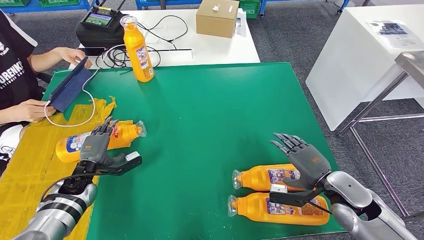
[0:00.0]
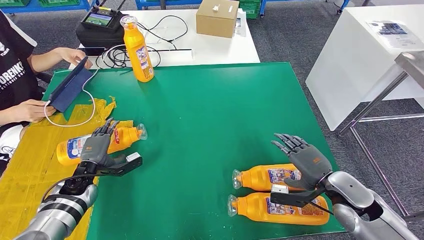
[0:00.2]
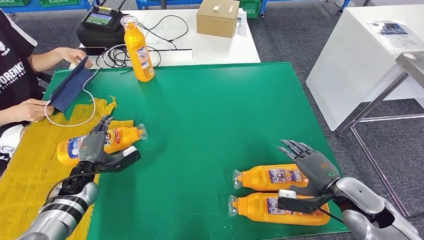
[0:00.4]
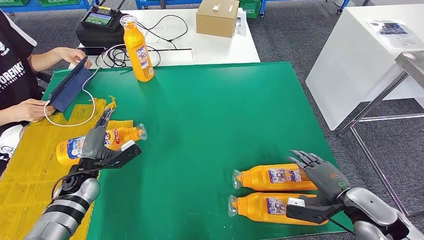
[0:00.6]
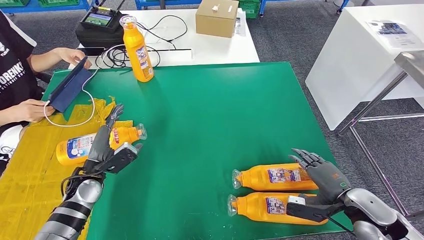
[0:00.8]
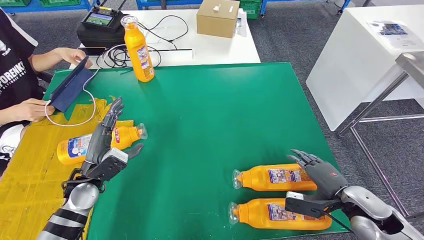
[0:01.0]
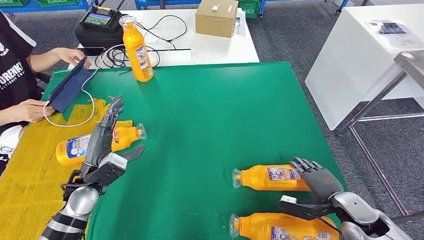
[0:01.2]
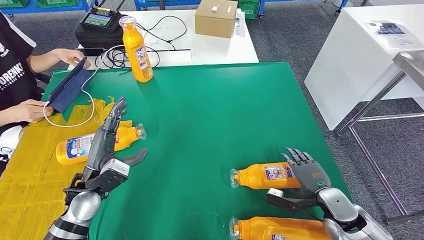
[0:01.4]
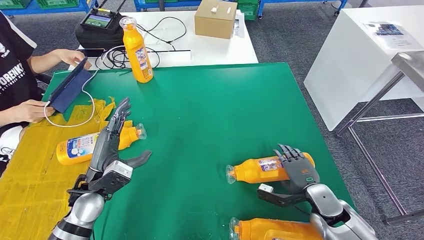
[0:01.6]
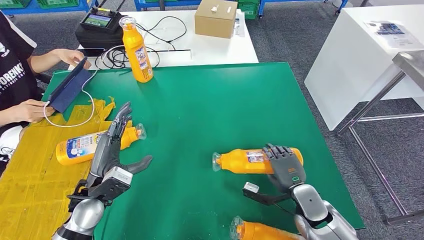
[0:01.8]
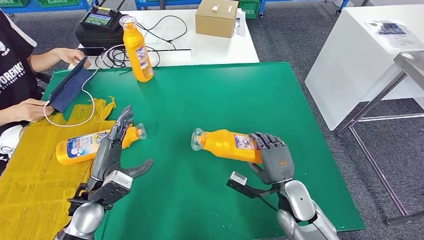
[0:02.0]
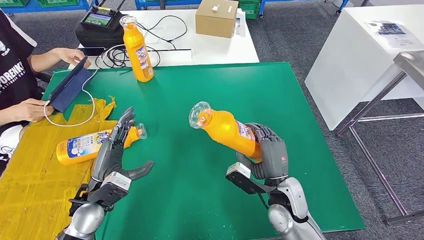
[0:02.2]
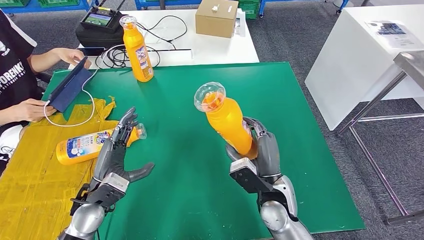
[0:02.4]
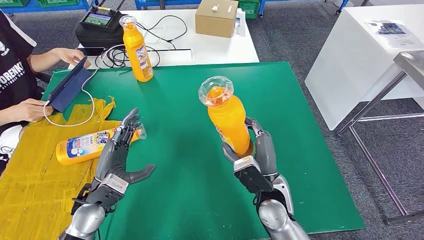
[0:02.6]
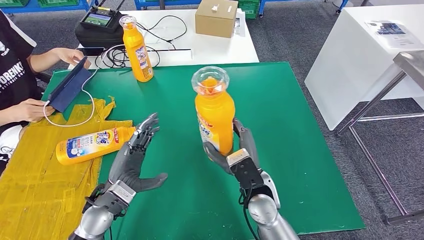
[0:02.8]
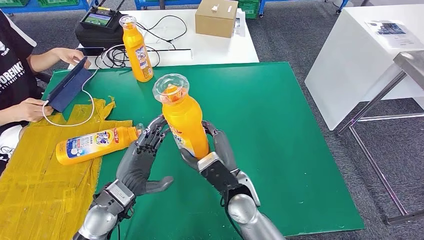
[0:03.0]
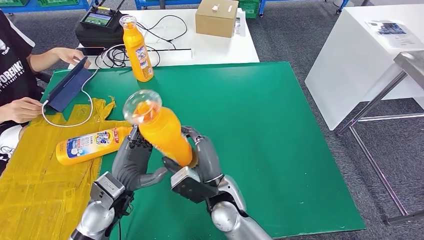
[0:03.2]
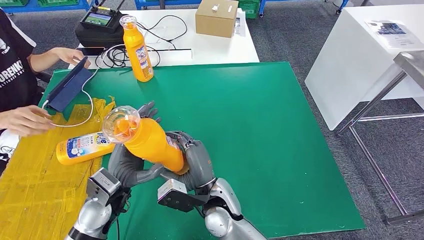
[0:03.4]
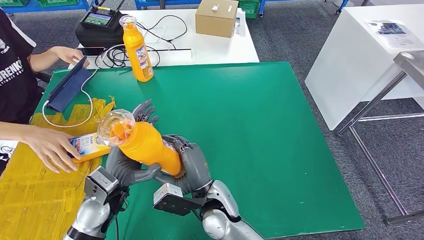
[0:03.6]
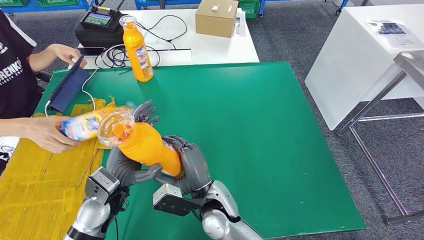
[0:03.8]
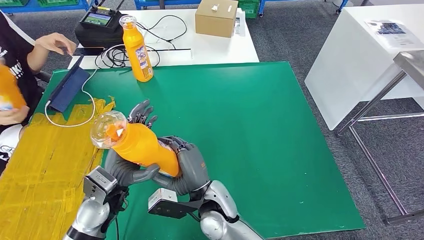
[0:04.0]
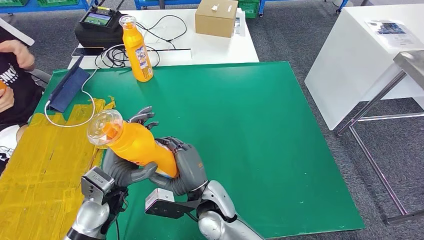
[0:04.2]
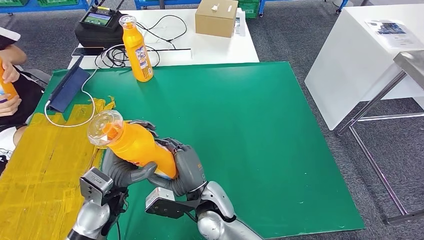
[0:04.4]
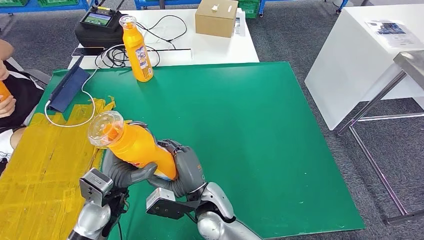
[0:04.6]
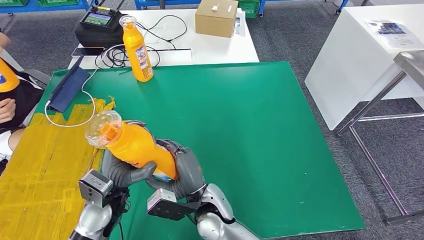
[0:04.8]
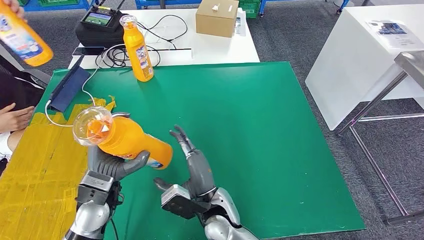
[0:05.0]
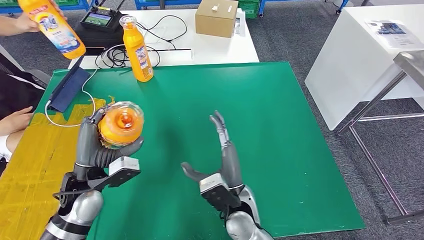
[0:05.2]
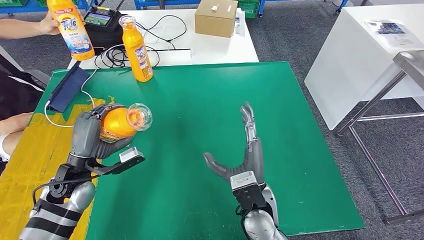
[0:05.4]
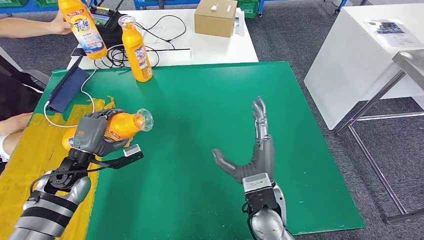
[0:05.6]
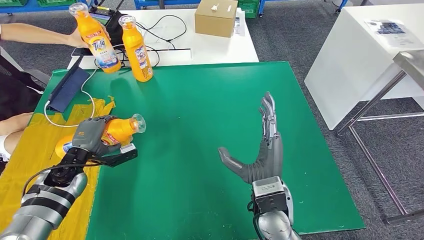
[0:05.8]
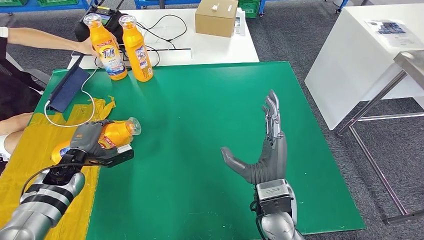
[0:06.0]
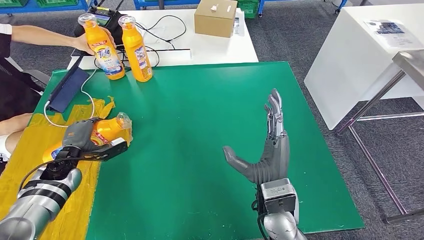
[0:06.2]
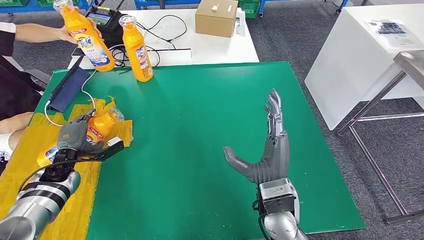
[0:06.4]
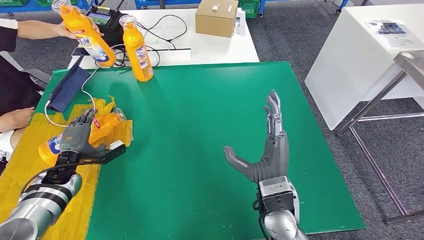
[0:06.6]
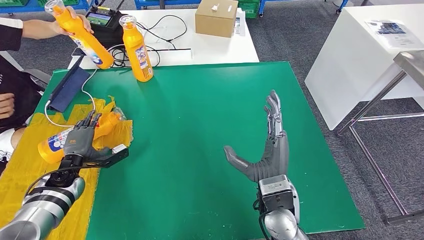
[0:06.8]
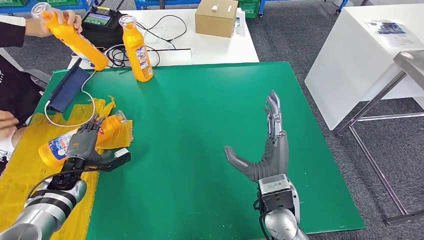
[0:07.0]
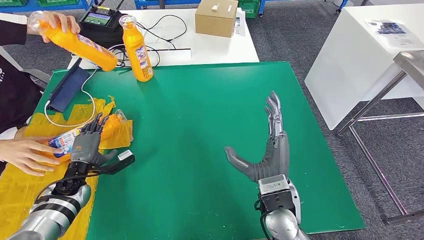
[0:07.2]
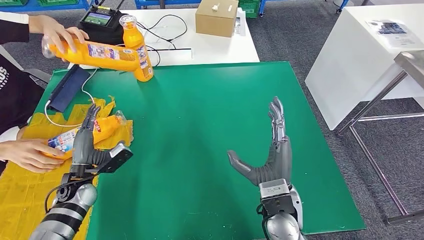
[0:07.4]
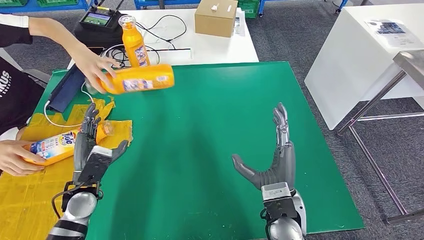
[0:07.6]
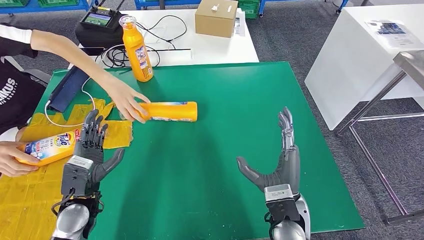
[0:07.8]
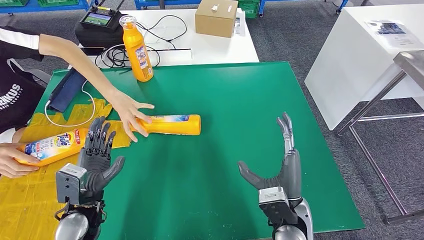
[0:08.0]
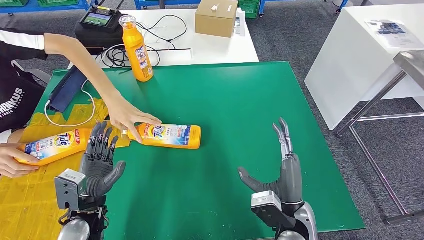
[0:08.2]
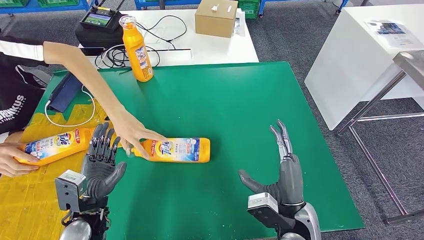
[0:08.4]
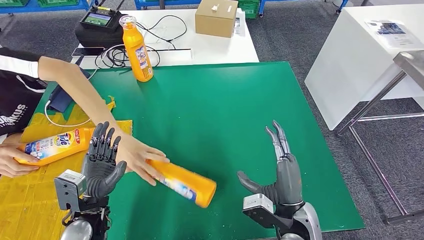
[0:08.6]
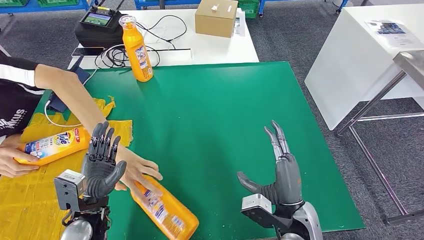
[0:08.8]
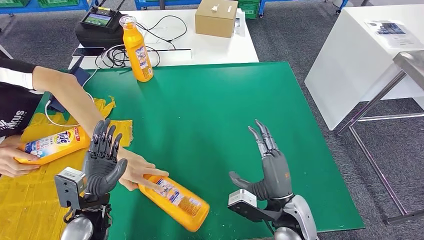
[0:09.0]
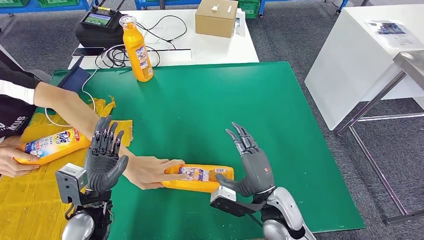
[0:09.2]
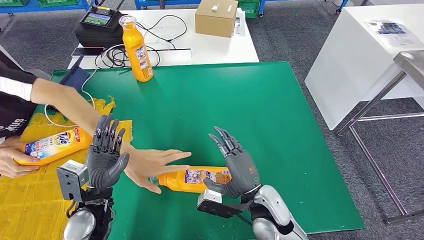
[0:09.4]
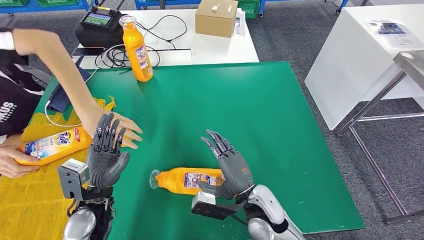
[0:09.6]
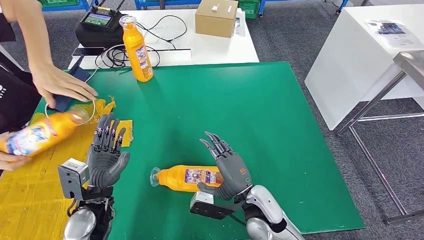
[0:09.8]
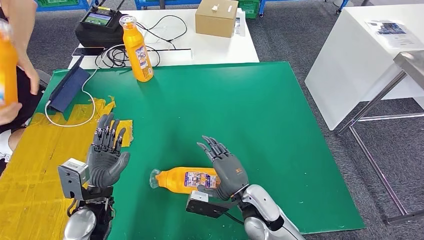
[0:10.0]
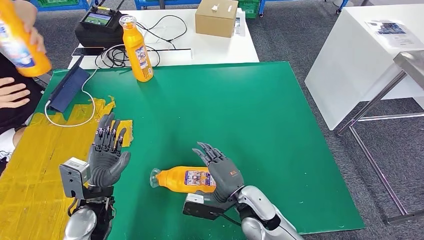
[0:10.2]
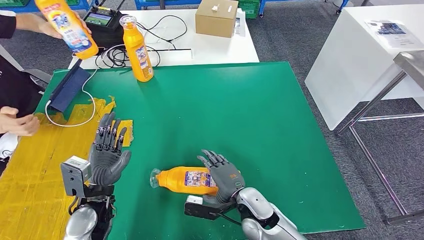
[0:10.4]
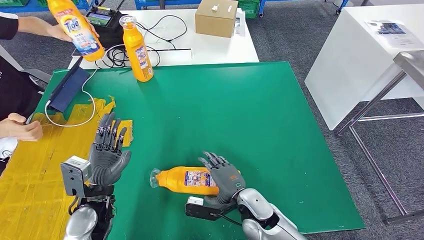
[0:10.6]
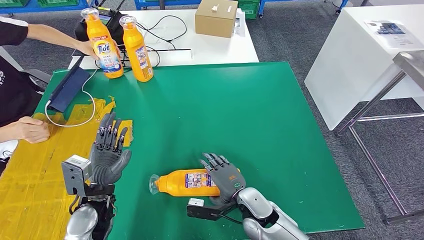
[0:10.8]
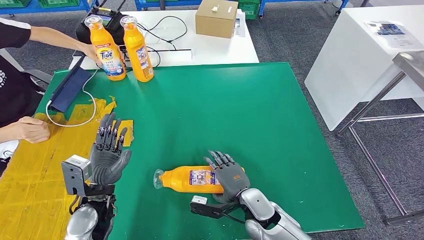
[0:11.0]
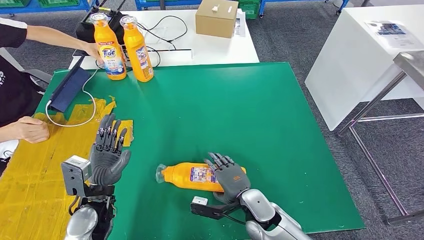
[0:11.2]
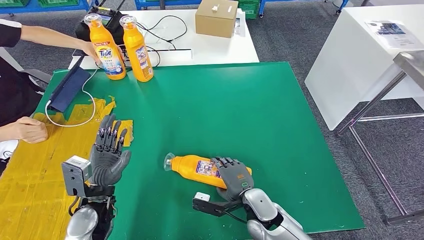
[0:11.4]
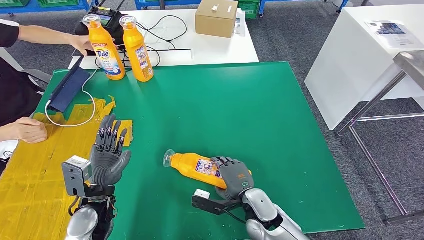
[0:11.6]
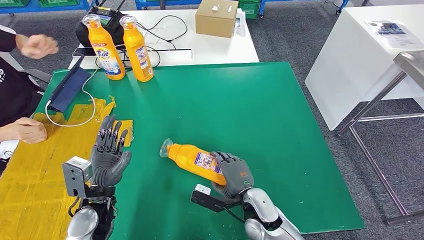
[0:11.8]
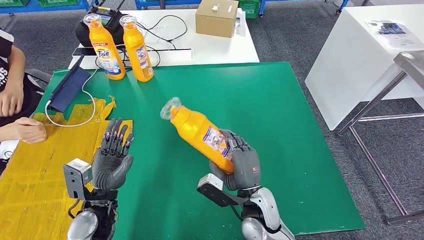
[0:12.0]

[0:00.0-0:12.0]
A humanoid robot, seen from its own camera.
Step, 0:01.6 to 0:04.8: Pick up the fast-moving consumer goods bottle from the table.
Step, 0:05.0 to 0:08.2: Flip the fast-moving consumer goods bottle to the front side.
0:06.0 to 0:07.6: The left hand is displaced backward and to the right by roughly 10 cm.

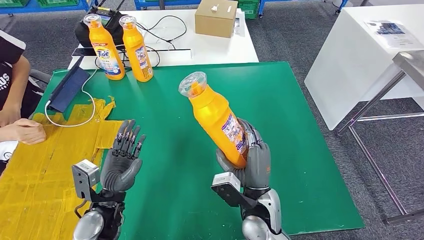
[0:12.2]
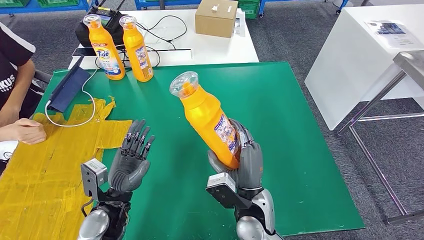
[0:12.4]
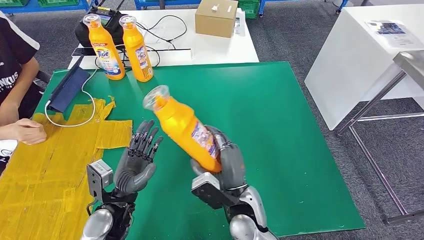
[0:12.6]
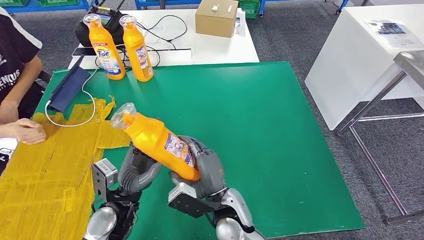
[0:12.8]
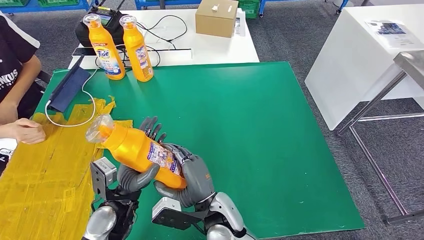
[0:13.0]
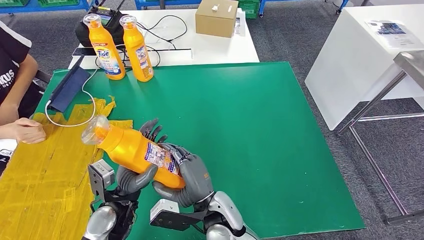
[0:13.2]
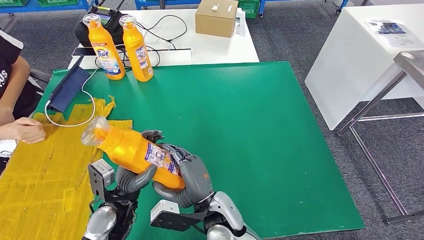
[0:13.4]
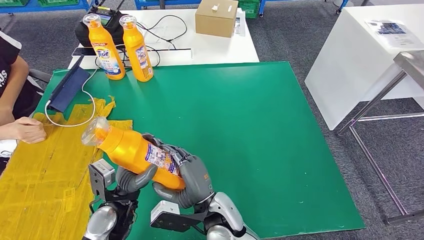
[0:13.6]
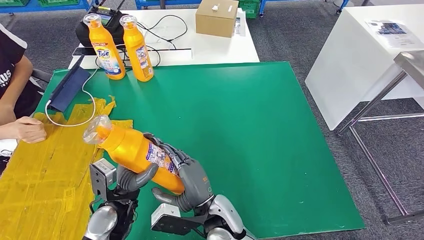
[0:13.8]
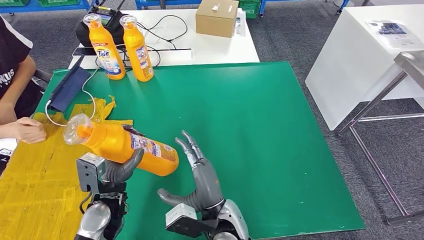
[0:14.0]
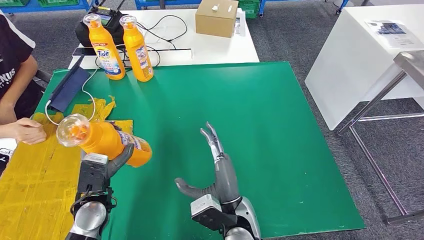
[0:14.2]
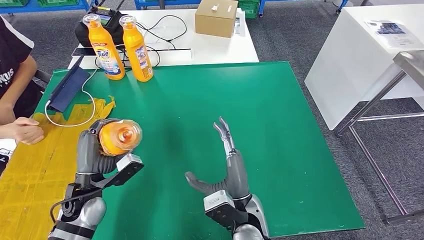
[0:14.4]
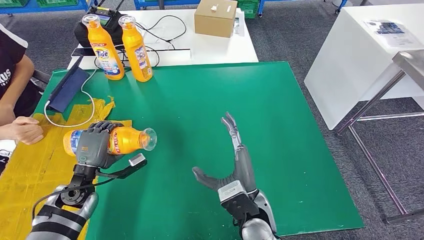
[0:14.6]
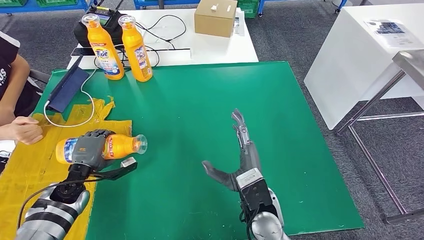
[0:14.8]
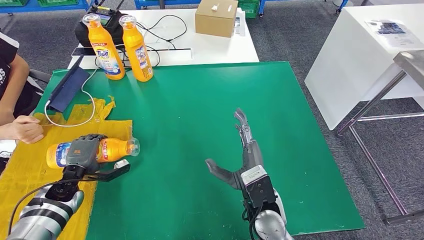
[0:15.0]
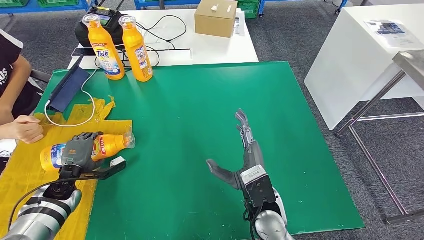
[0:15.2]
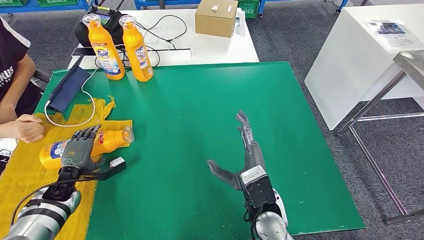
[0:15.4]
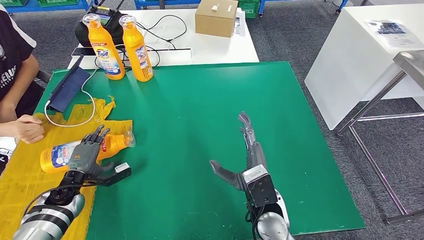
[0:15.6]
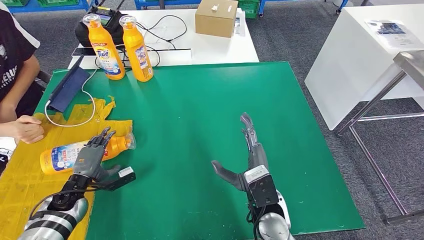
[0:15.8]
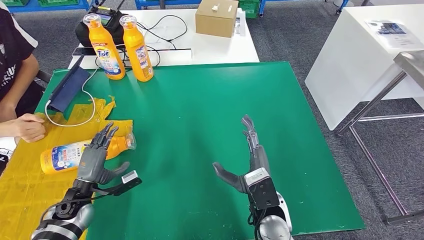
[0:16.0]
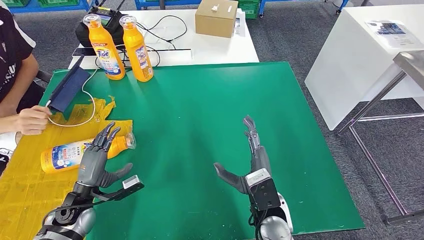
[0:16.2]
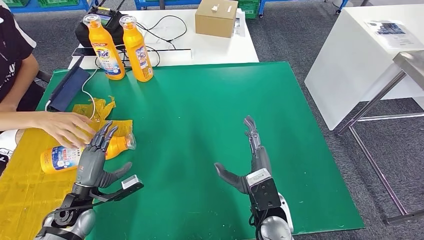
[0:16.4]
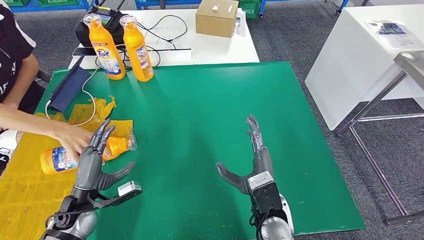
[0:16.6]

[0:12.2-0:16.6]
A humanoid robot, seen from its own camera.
Step, 0:12.6 to 0:16.6: Flip the fast-moving consumer goods bottle to the front side.
0:12.2 to 0:13.6: The right hand heads to the left, covering roughly 10 cm.
0:13.6 to 0:15.2: The left hand goes about 20 cm to the left and forward; the right hand is displaced to the right by some 10 cm.
0:15.2 to 0:16.6: The left hand travels to the right and backward by roughly 10 cm.
